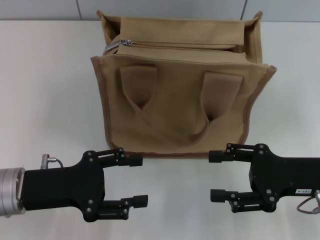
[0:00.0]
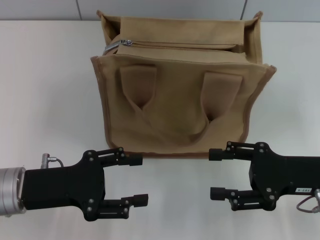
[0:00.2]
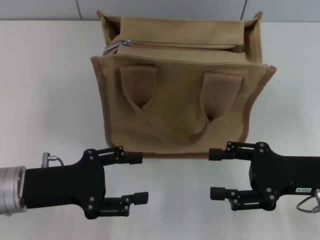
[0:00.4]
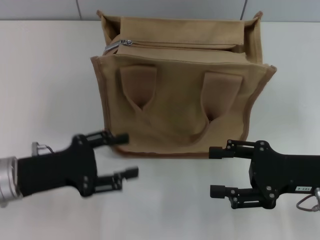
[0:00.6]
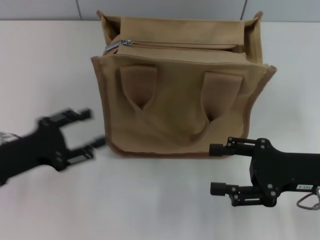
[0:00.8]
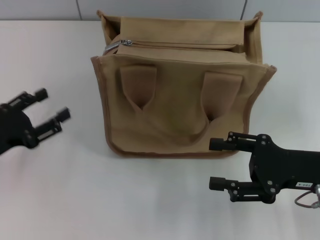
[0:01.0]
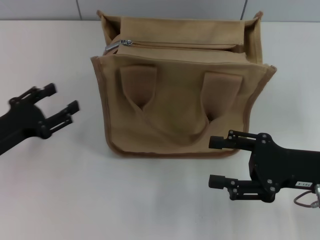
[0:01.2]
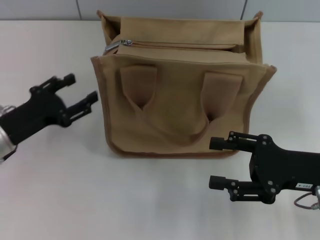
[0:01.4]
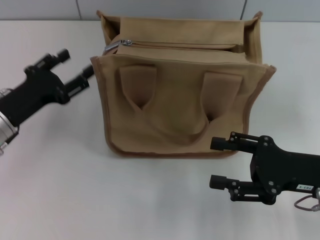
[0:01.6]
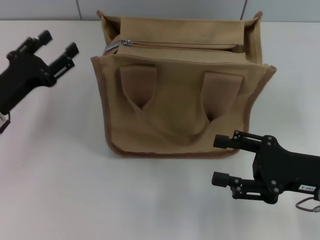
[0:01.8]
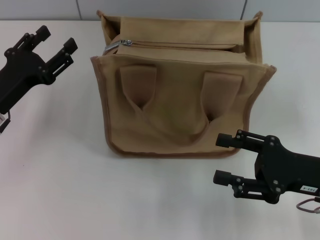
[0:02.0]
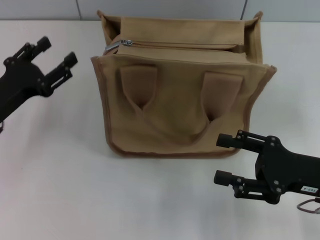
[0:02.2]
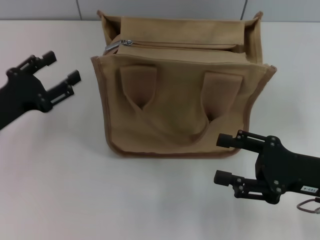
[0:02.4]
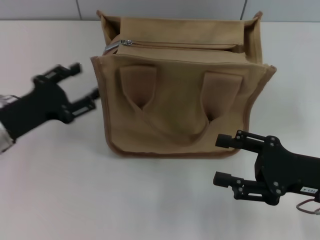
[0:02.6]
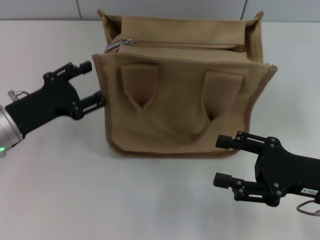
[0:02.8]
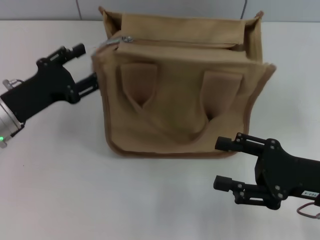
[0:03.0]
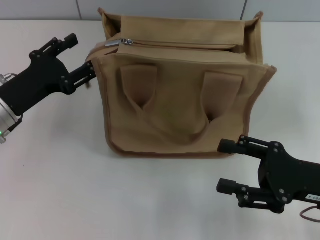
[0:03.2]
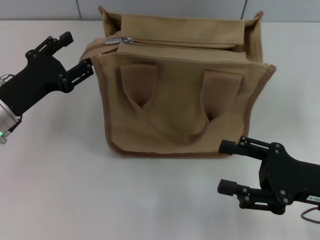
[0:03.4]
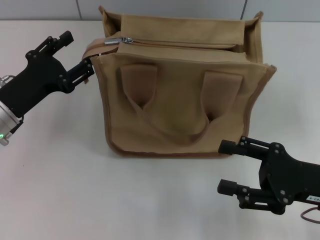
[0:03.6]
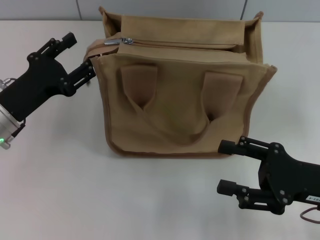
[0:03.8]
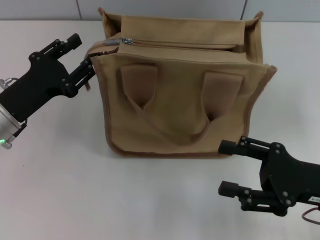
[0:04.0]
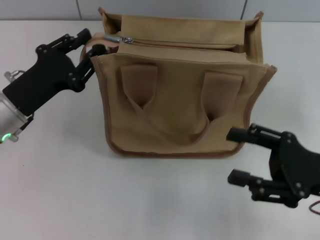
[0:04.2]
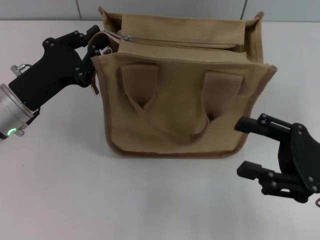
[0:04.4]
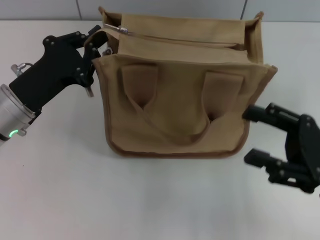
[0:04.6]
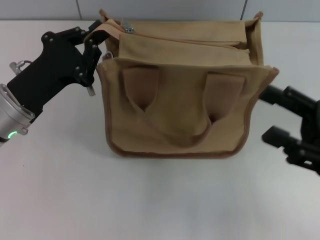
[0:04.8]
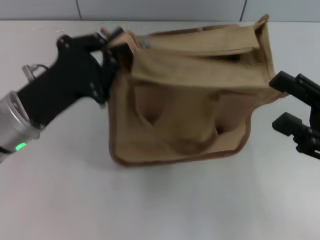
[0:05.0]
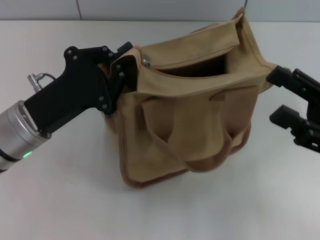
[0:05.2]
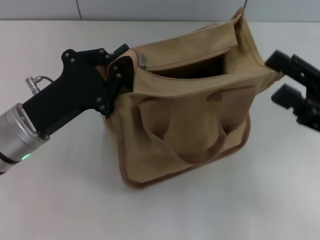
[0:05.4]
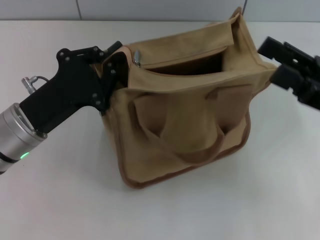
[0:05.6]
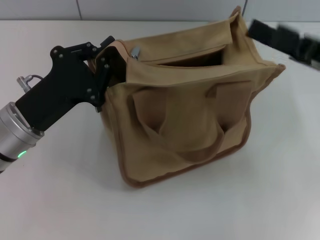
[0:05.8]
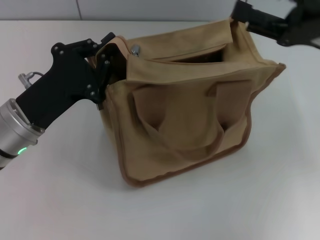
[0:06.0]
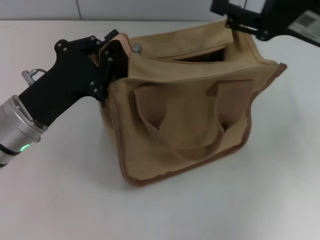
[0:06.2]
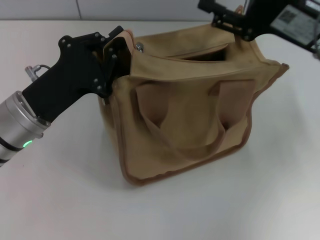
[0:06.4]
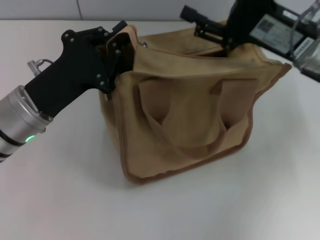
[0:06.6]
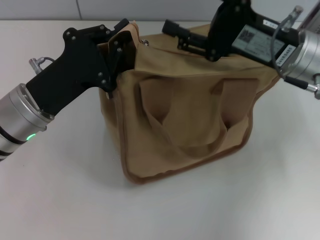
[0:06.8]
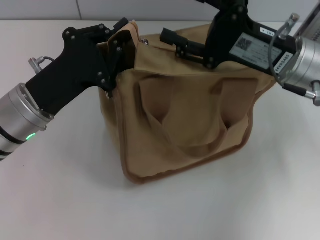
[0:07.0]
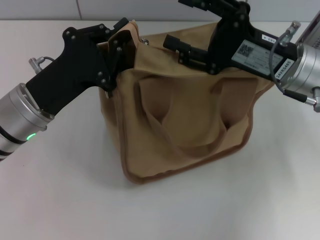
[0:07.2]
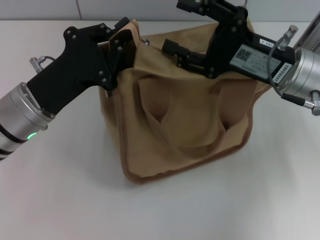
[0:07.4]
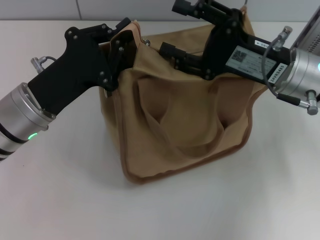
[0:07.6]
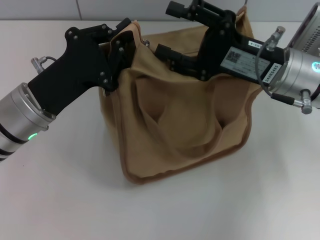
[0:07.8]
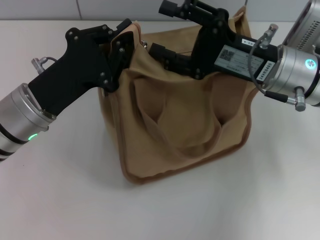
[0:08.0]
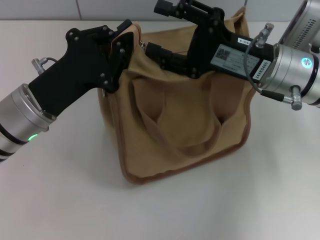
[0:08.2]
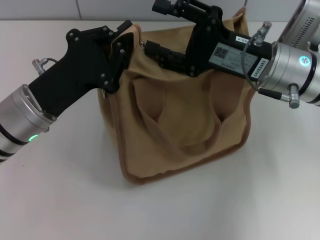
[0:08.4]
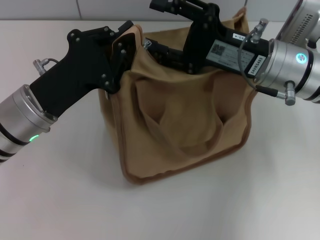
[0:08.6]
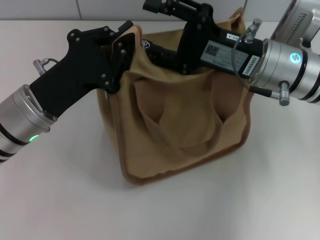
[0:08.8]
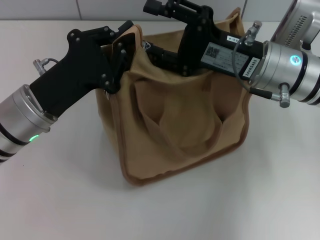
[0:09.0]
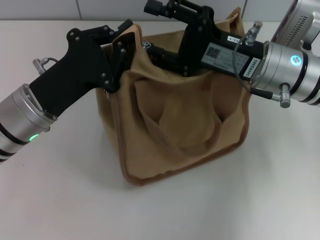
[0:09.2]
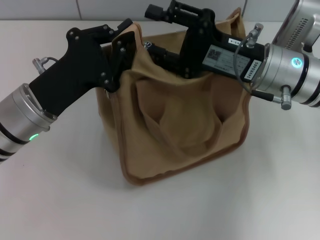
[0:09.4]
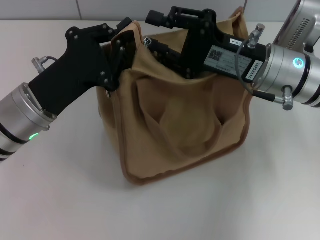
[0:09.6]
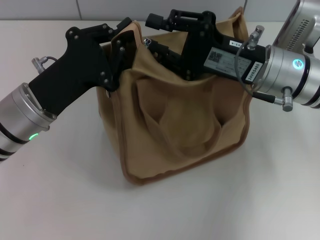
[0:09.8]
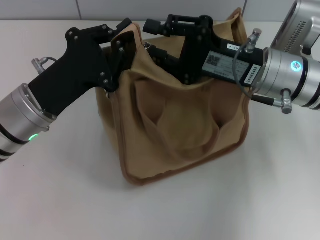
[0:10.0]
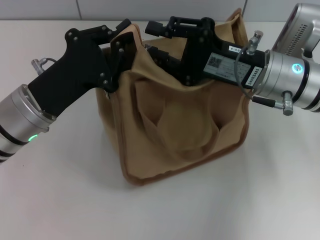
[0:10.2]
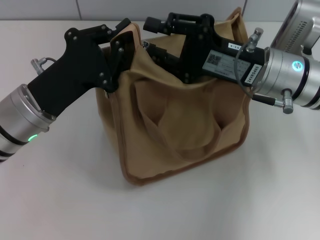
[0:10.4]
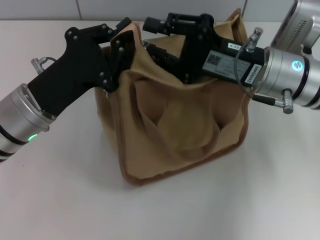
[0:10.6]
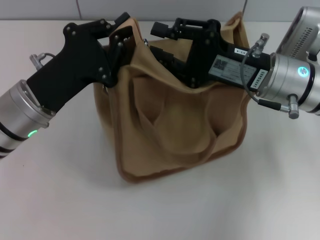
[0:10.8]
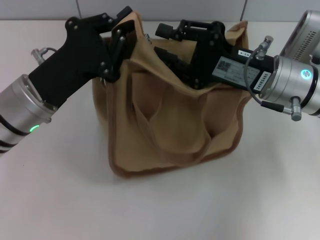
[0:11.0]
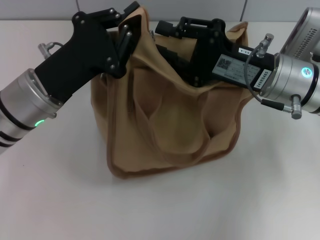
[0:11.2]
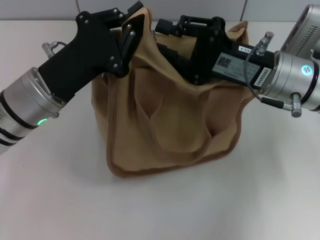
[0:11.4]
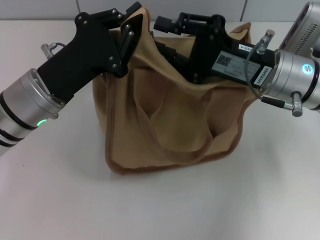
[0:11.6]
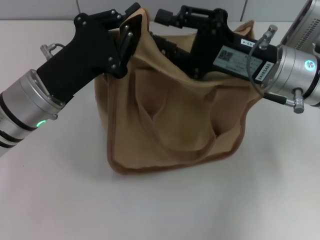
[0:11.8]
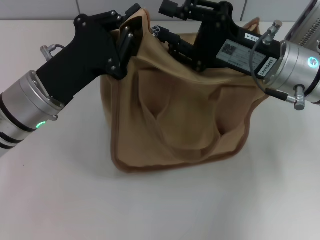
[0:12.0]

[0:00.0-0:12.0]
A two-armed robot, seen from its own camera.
0:00.0 to 0:01.6: The left gripper goes approximately 5 cm forward.
0:01.6 to 0:03.0: The grippers move only a little.
0:03.0 to 0:04.4: The left gripper closes.
0:04.4 to 0:06.0: The right gripper is displaced forward and upward by roughly 15 cm.
0:06.0 to 0:07.6: The right gripper moves to the left, approximately 5 cm.
0:07.6 to 0:09.0: There are only small adjustments of the grippers.
0:09.0 to 0:10.4: The right gripper closes.

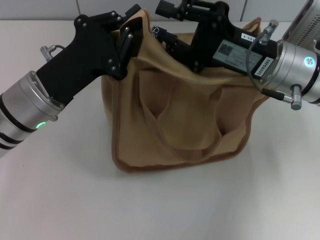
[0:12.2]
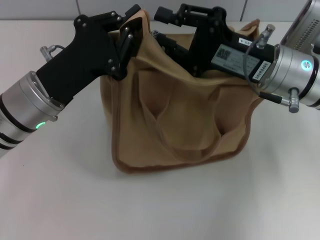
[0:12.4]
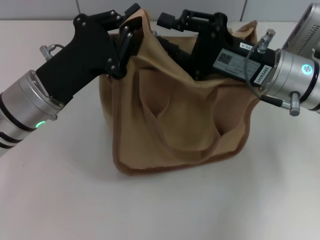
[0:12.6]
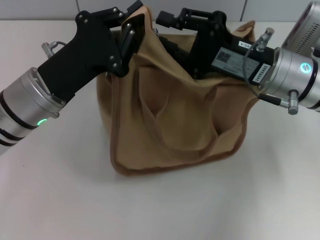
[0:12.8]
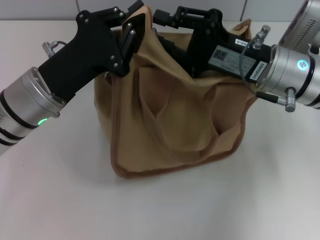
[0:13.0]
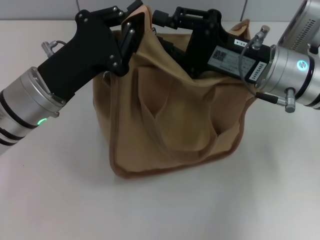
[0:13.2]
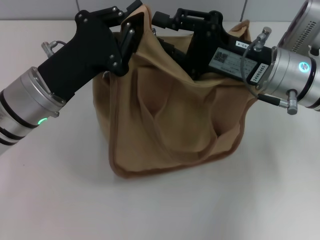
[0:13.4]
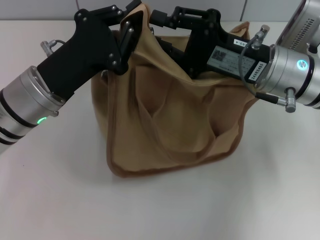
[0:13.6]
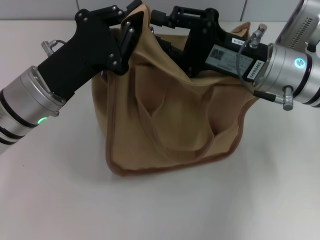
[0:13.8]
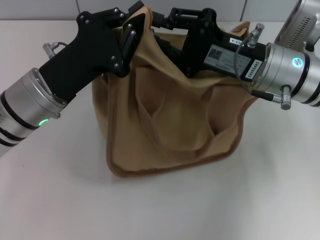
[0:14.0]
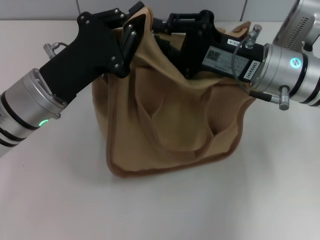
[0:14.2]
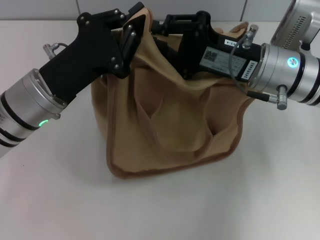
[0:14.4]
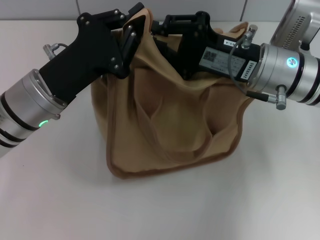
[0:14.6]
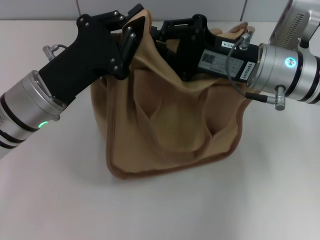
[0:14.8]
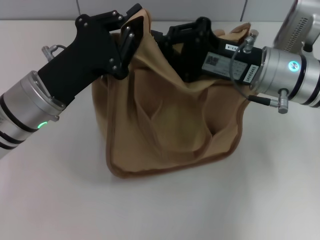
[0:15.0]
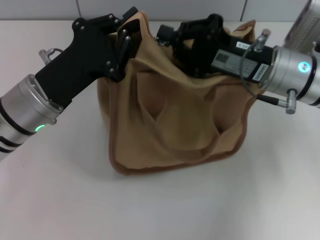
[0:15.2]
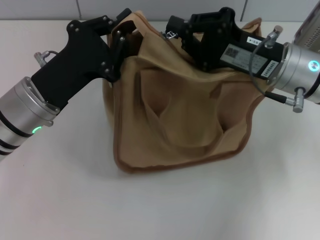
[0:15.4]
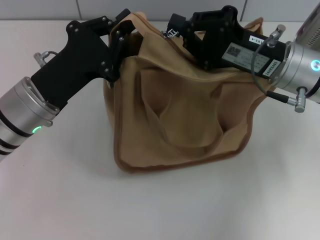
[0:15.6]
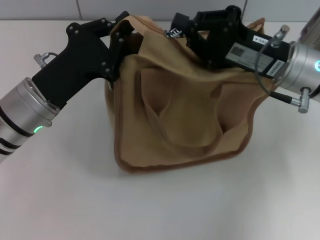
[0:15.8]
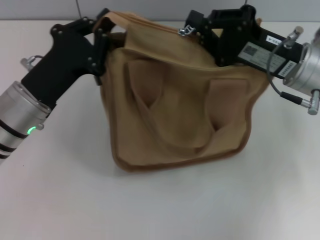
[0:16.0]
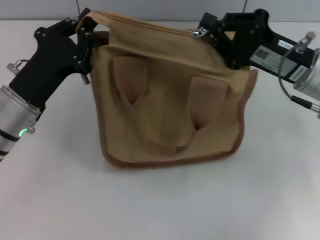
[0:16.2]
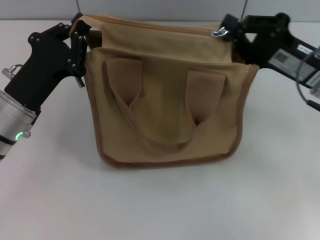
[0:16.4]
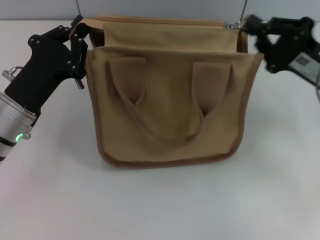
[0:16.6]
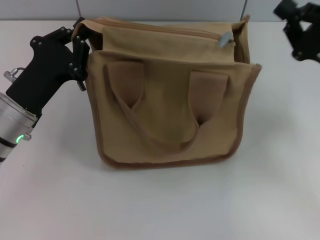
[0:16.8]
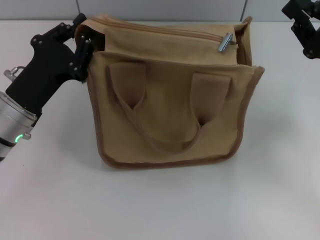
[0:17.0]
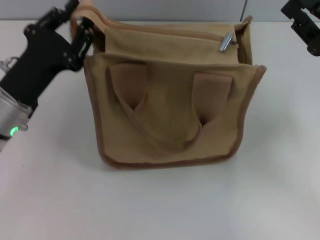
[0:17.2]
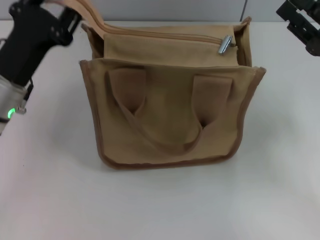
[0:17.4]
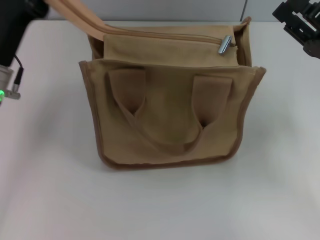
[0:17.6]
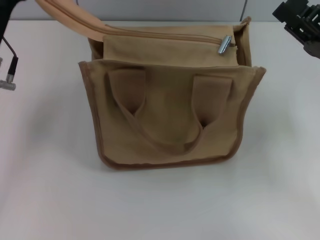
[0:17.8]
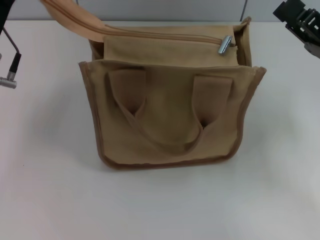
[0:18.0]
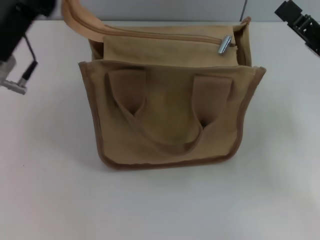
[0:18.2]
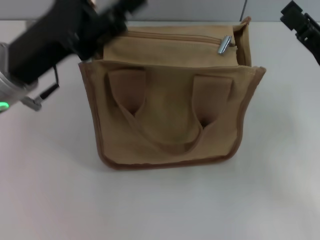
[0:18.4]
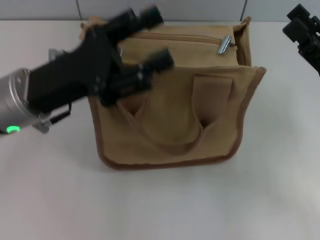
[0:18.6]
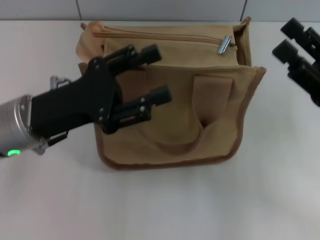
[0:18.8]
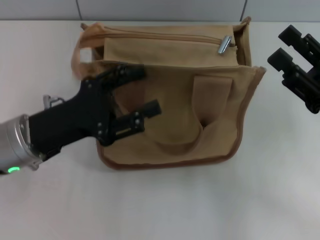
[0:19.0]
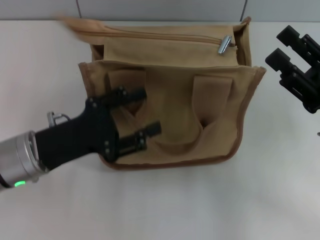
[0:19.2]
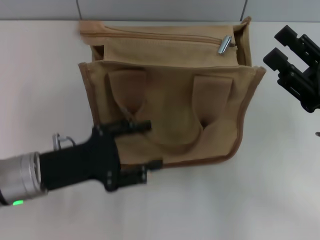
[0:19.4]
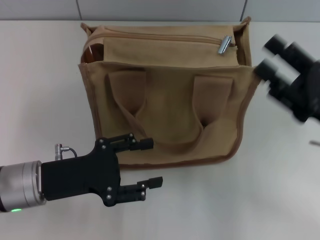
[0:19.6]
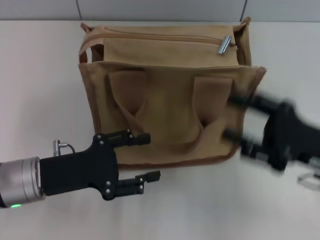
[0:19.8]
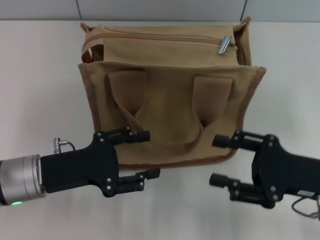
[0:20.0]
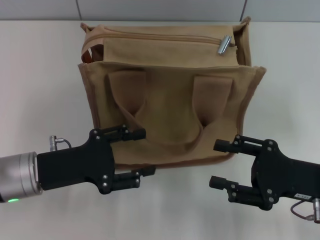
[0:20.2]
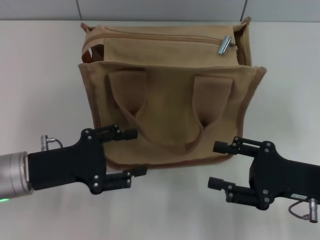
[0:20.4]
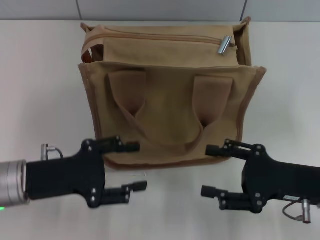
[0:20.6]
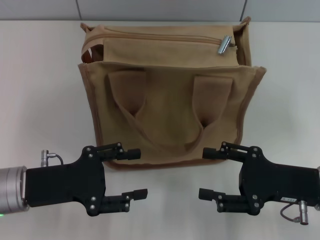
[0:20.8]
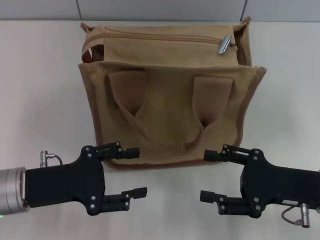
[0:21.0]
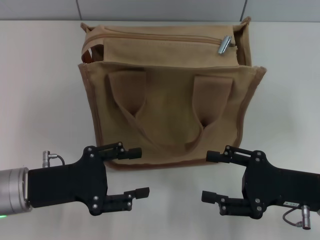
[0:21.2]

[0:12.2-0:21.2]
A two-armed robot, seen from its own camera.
Step, 0:12.2 to 0:16.8: Pull up the zipper with your right hand.
Step, 0:17.2 to 0:18.2: Grab the zipper with your left hand.
0:12.2 to 0:13.8: Neither gripper changes place.
0:13.8 to 0:15.2: The right gripper closes.
0:15.2 to 0:16.6: The right gripper is displaced to the right by some 10 cm.
0:16.6 to 0:18.2: The right gripper opens its fingers; the left gripper shifts roughly 10 cm upward, and opens its fingers.
0:18.2 to 0:19.8: The left gripper moves downward and backward, some 10 cm. Meanwhile the right gripper ends up roughly 5 cm from where it was.

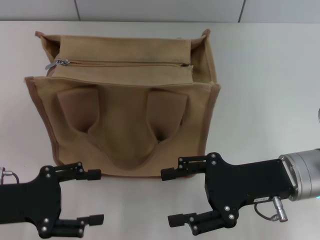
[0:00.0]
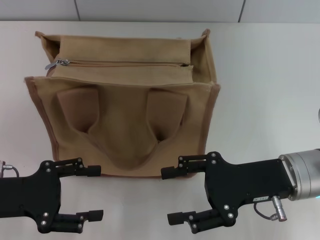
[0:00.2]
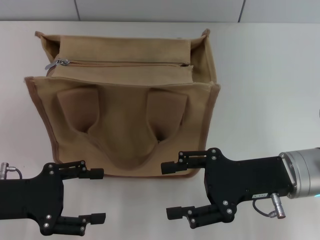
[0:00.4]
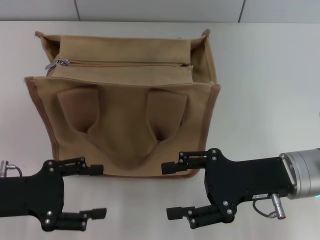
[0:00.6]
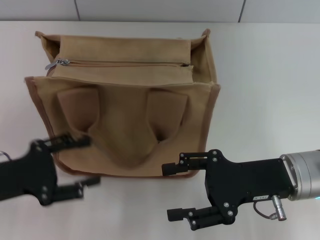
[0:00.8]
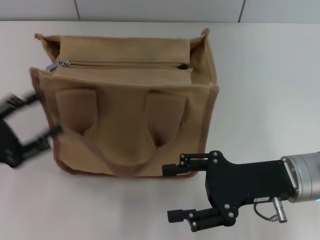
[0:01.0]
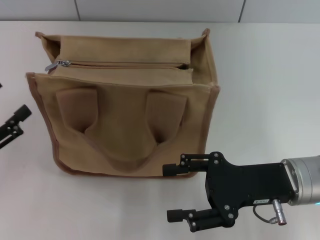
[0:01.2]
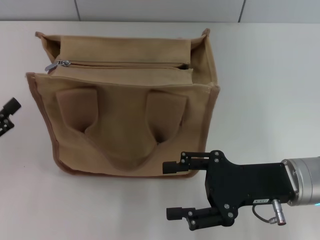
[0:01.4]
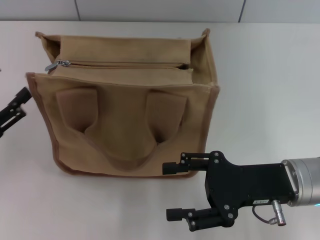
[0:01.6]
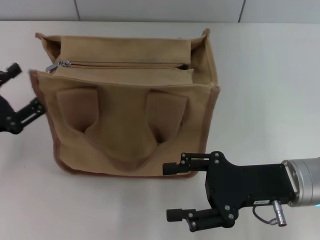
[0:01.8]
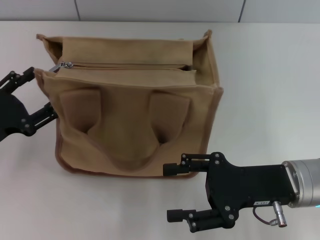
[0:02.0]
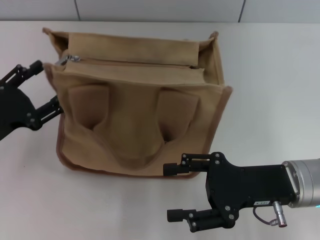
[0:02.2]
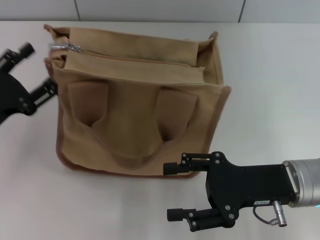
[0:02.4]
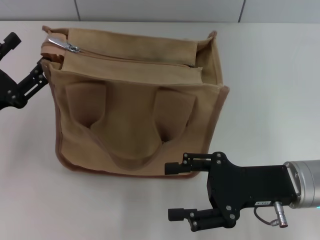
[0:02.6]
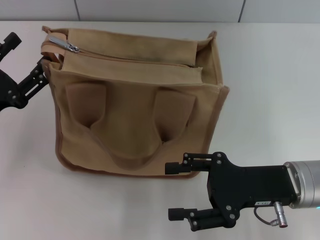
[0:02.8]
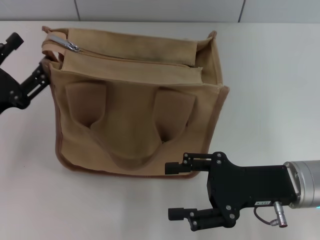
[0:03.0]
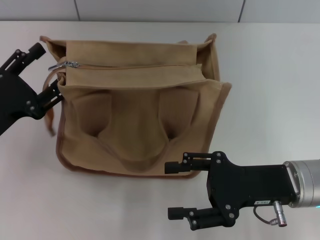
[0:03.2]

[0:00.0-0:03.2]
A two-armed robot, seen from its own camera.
0:01.6 to 0:03.2: The left gripper shifts by some 5 cm.
